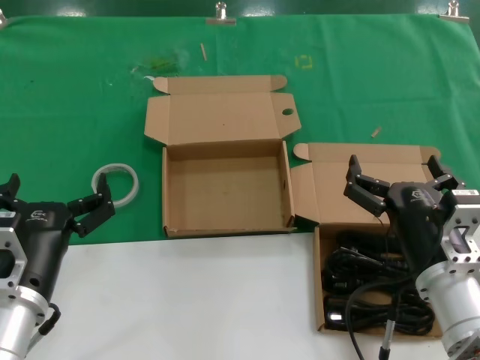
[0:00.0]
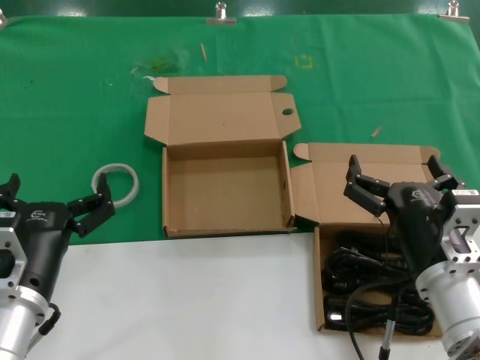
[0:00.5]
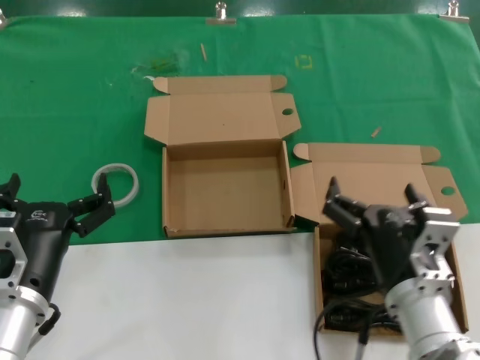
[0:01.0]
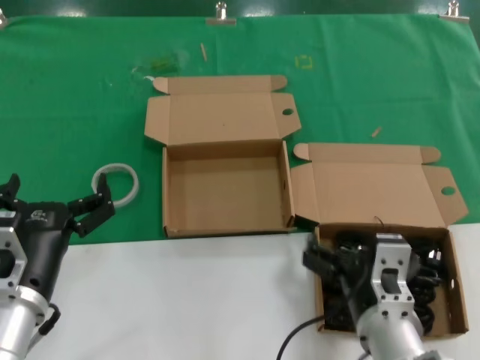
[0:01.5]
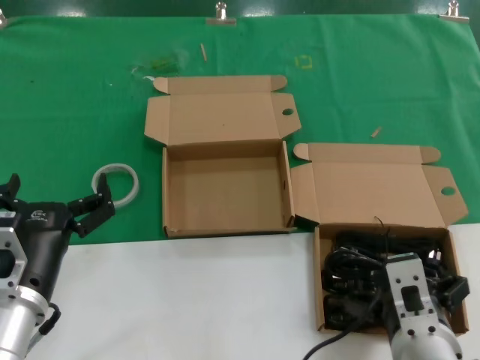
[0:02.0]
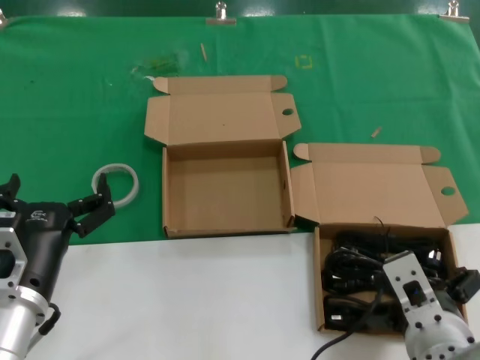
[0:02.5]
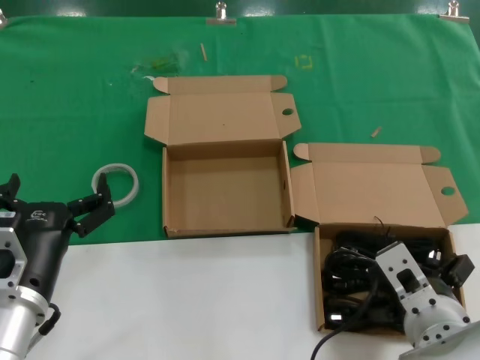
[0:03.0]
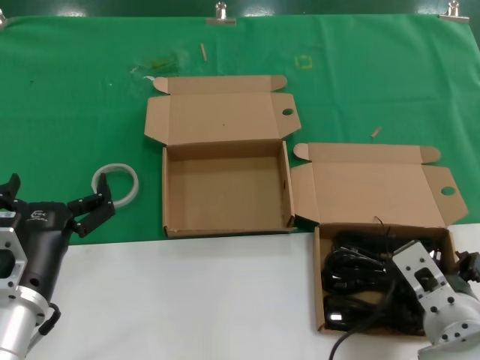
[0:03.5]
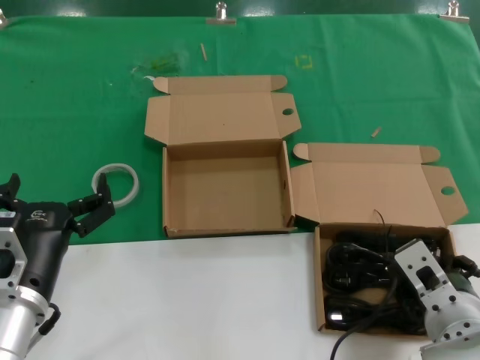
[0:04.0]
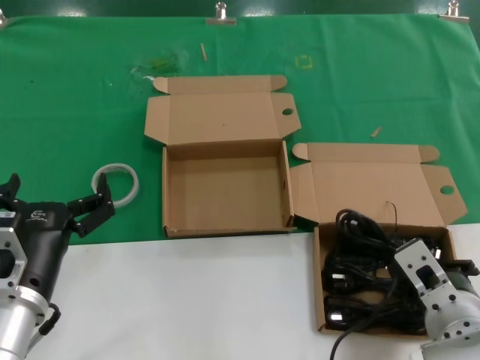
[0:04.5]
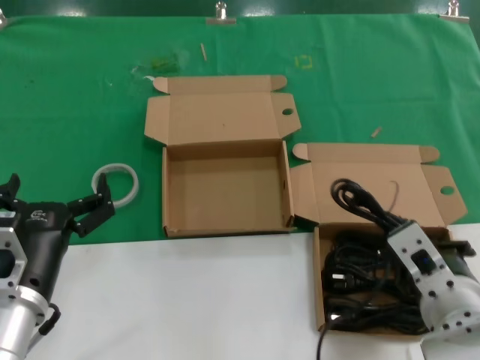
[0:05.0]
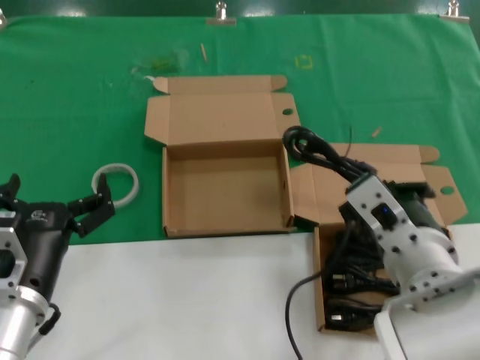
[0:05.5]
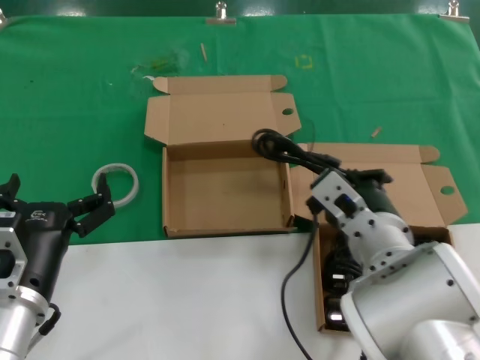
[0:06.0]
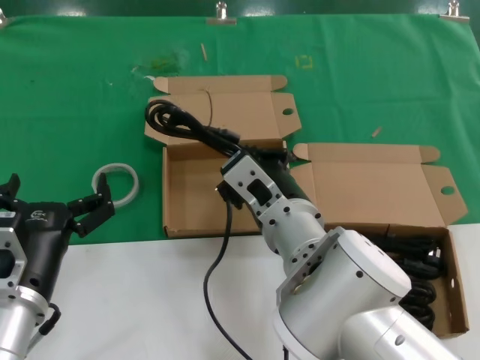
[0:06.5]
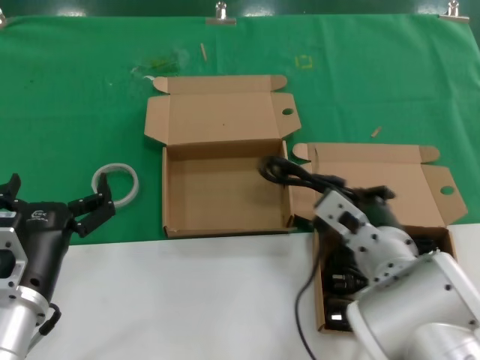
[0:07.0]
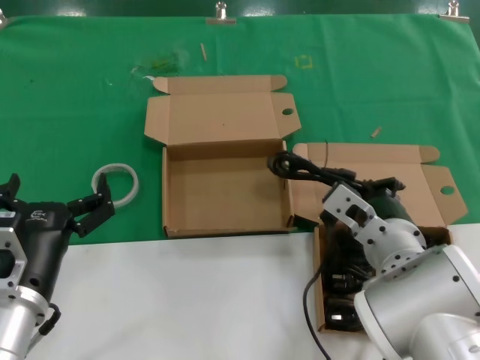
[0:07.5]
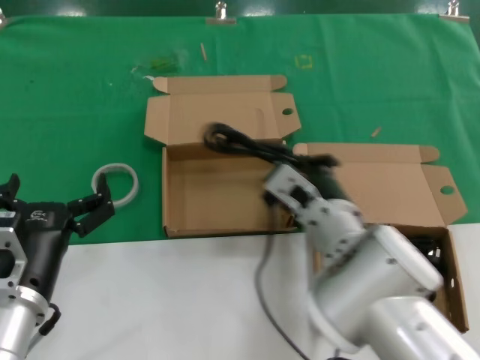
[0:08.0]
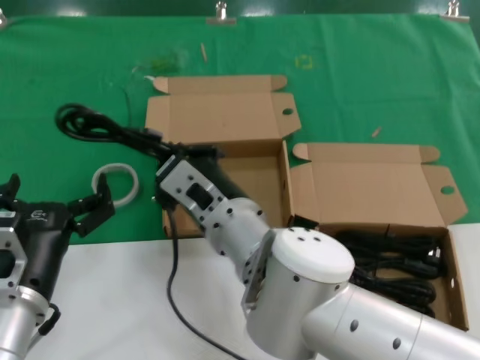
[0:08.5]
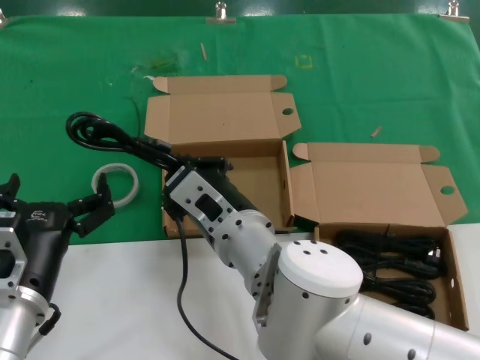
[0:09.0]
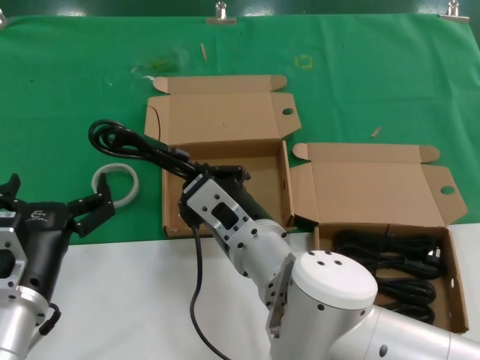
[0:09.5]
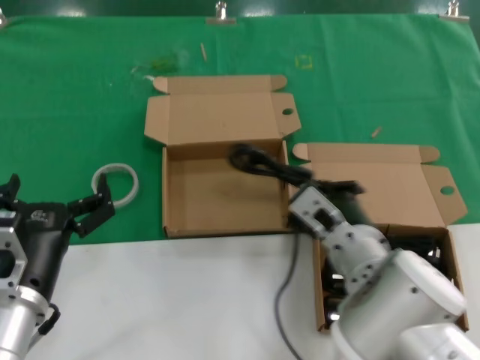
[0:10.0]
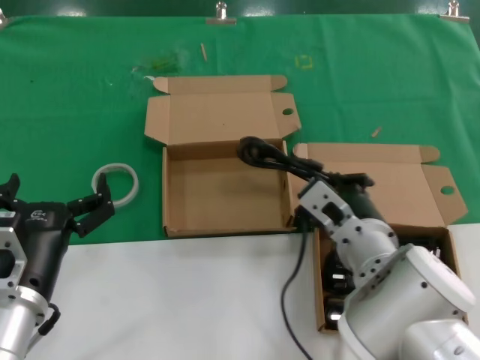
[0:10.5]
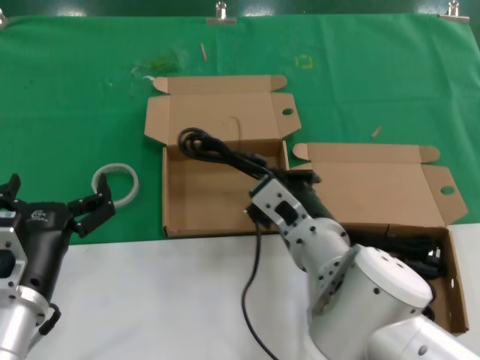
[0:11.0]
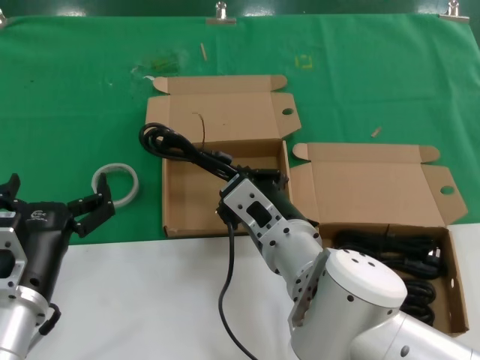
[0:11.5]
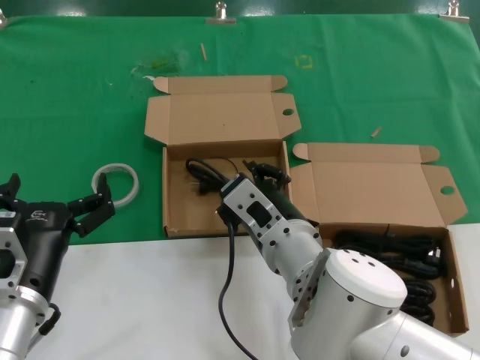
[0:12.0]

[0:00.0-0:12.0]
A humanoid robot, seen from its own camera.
Task of the whole recording: take the parts from the box containing them and put them into an empty box.
Step, 0:00.0 to 0:04.0: Grasp the data cable.
Step, 0:04.5 to 0:11.5: Place the data cable in the another box.
0:00.0 to 0:02.0: The right hand goes about 10 cm to the left and backward.
0:02.0 to 0:04.0: The right hand shifts about 5 cm to the right.
0:04.0 to 0:06.0: The right hand moves to the left and forward, about 10 cm.
0:06.0 to 0:08.0: The right hand goes left and right, about 10 cm each way, reversing 2 times.
0:08.0 to 0:10.0: The right hand reaches roughly 10 cm to the left, then returns.
0:10.0 to 0:12.0: The right hand moves to the left, some 5 cm.

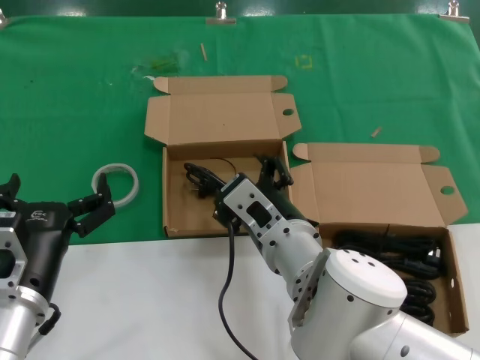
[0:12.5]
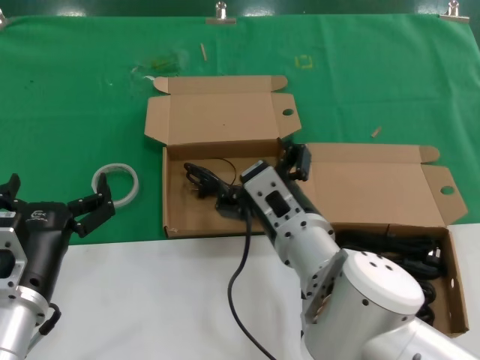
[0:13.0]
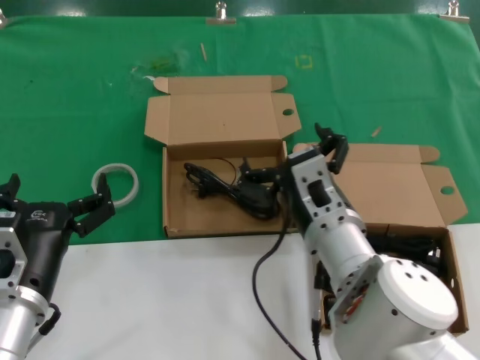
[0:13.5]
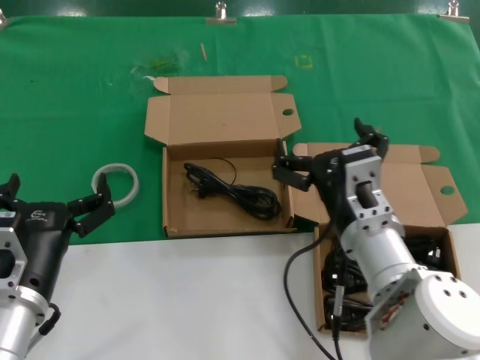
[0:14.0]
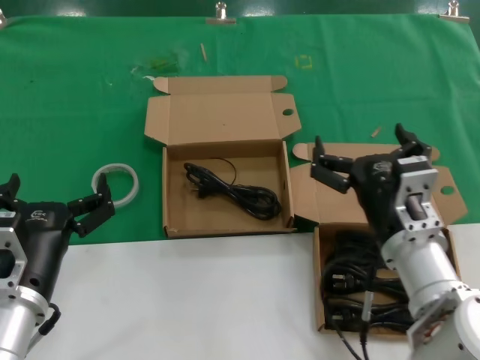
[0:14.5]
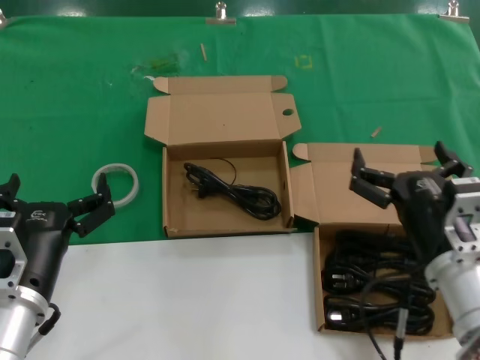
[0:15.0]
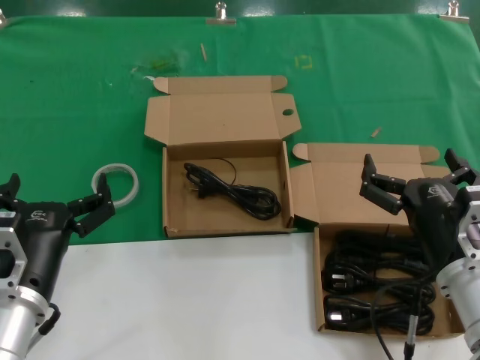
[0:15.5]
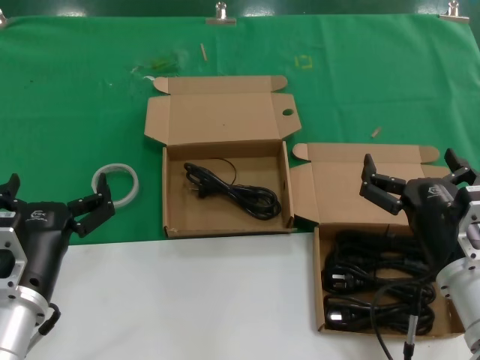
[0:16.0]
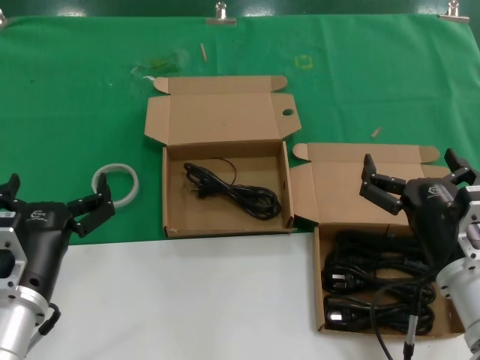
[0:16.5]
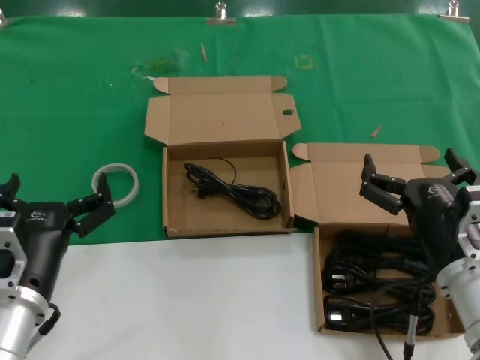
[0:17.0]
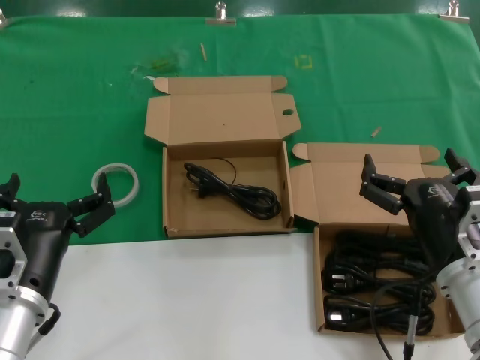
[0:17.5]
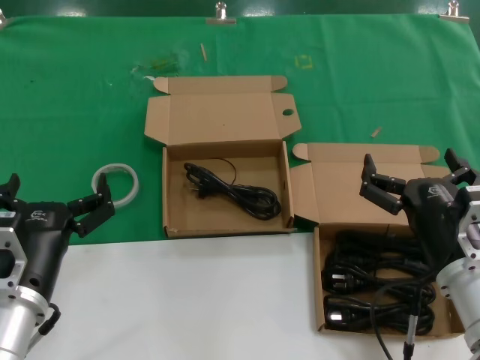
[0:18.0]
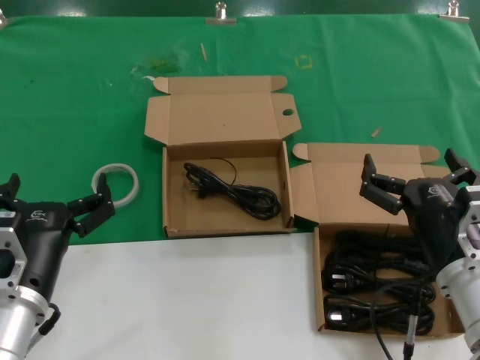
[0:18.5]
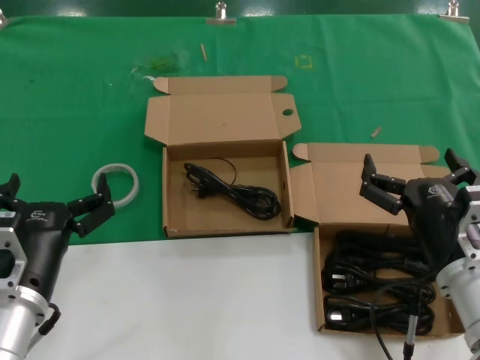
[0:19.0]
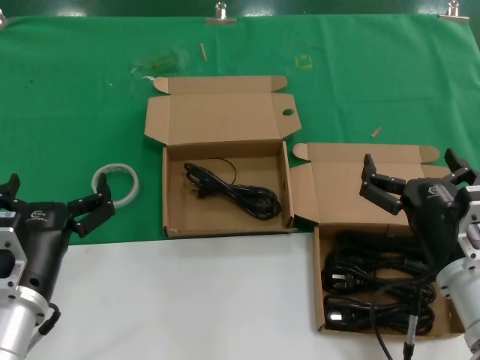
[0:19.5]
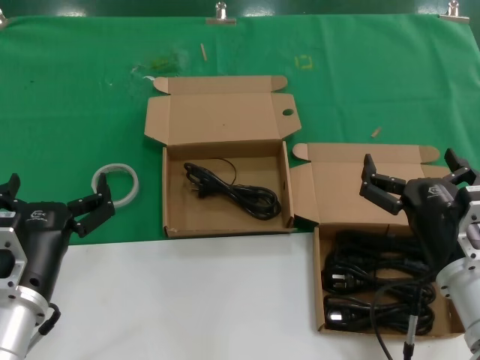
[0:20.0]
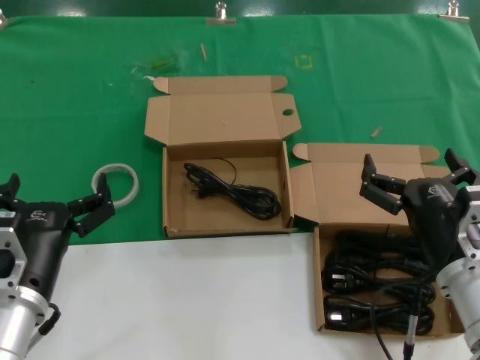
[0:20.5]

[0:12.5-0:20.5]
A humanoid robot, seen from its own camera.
Task of the whole recording: take the parts from the box containing them and put them into an empty box.
0:12.5 to 0:14.5: The right hand moves to the right, some 15 cm.
0:14.5 to 0:16.5: The right hand travels to the right by roughly 5 cm.
0:16.5 to 0:20.5: Both hands stay put.
